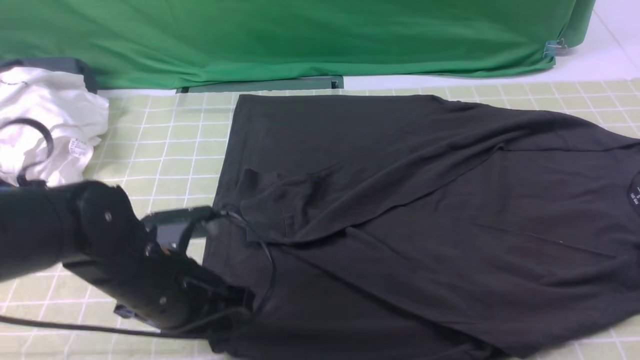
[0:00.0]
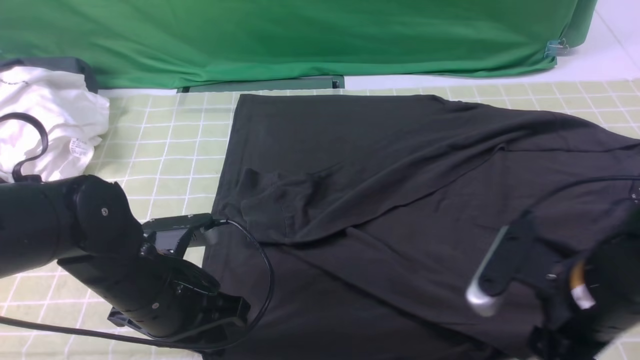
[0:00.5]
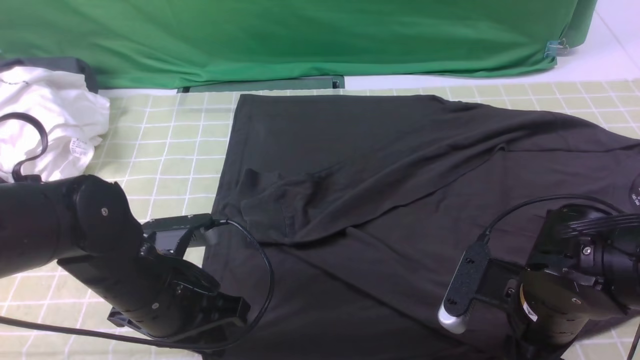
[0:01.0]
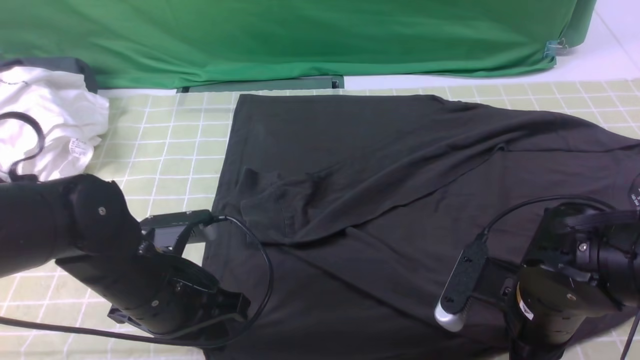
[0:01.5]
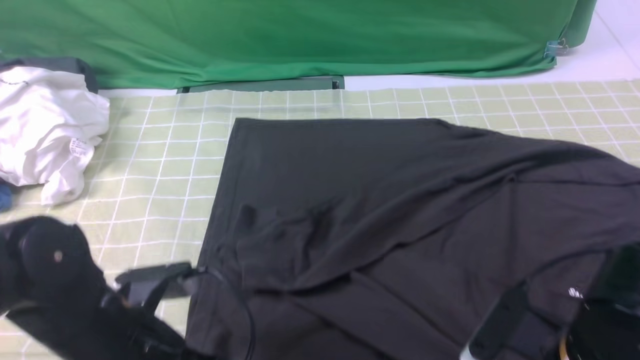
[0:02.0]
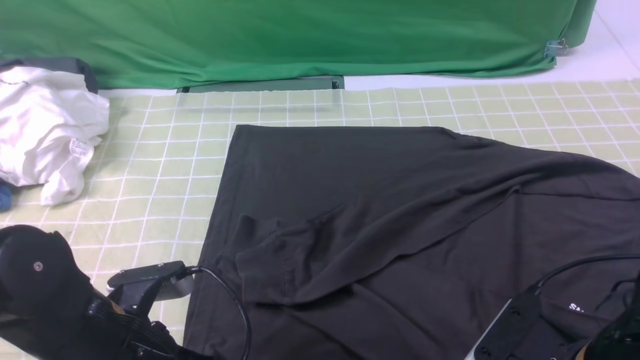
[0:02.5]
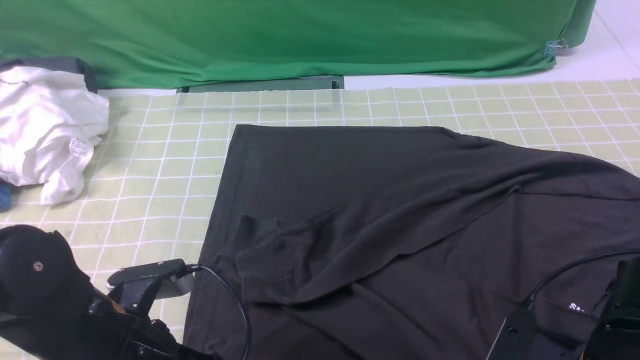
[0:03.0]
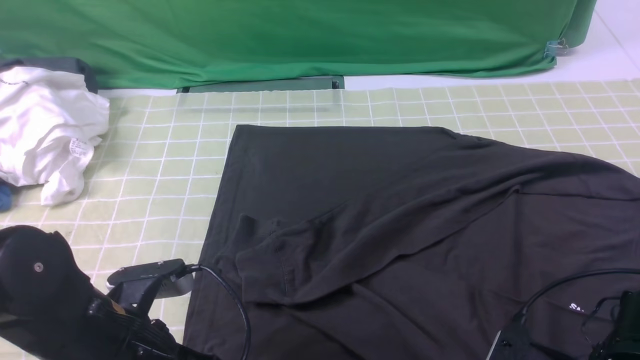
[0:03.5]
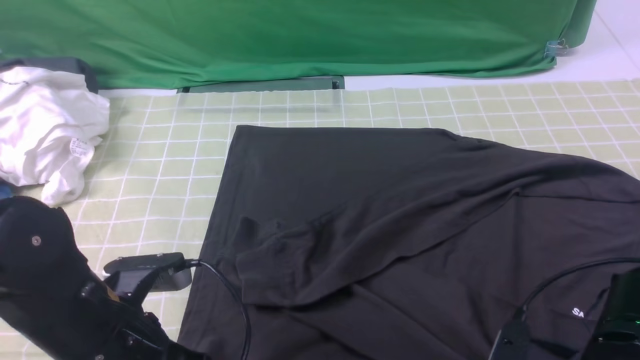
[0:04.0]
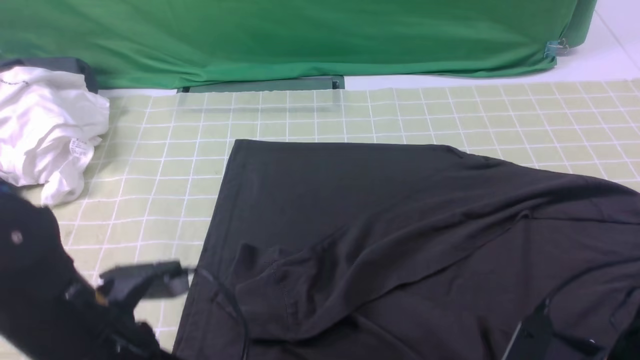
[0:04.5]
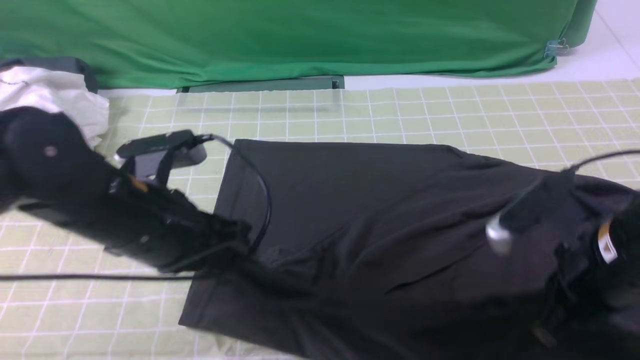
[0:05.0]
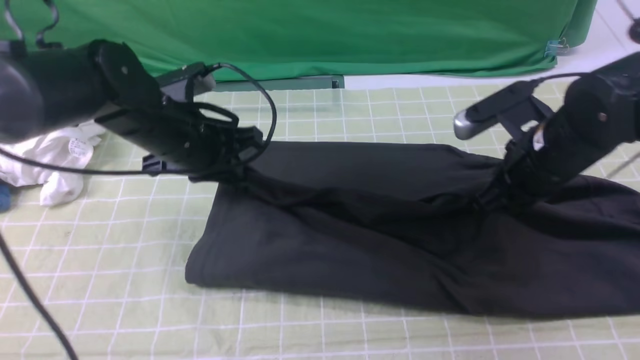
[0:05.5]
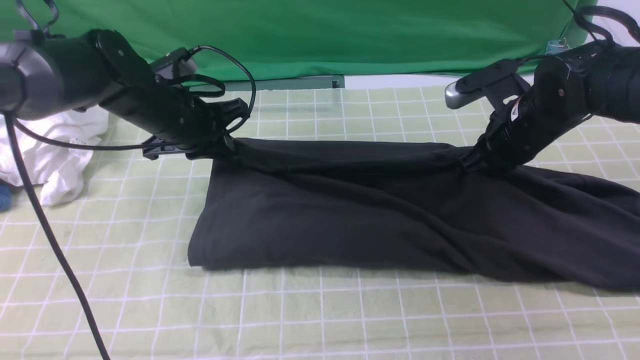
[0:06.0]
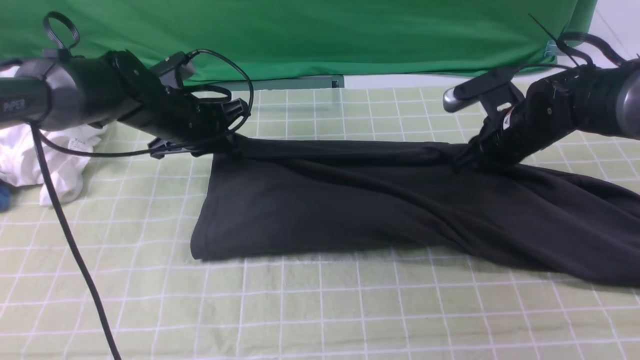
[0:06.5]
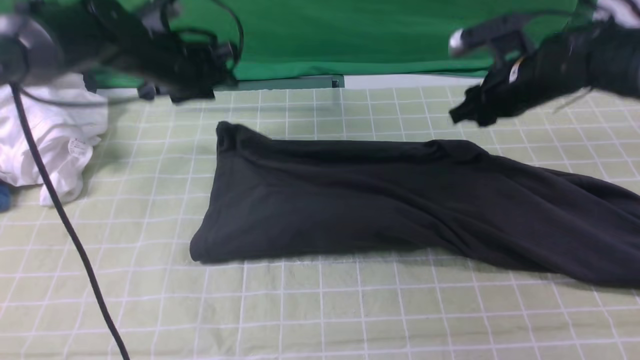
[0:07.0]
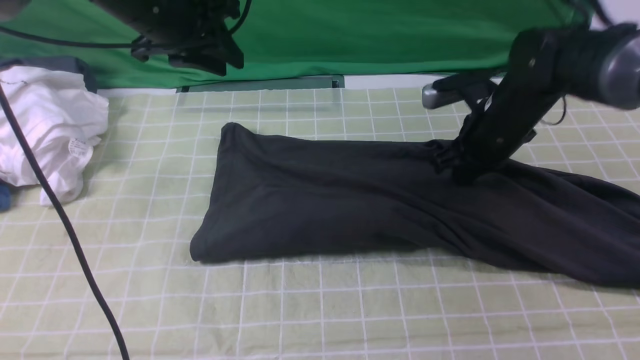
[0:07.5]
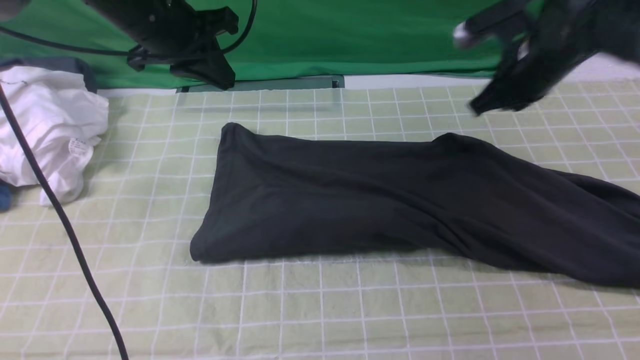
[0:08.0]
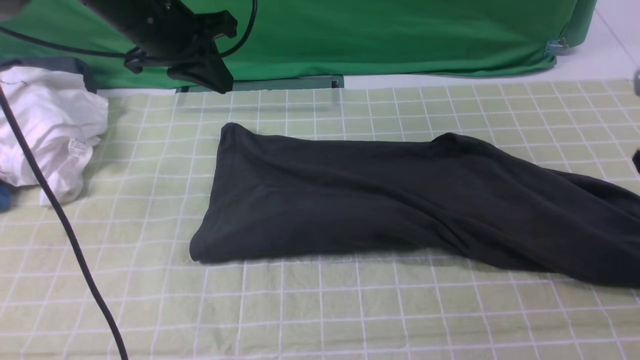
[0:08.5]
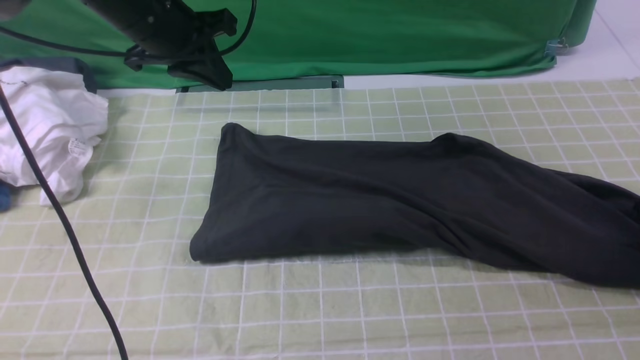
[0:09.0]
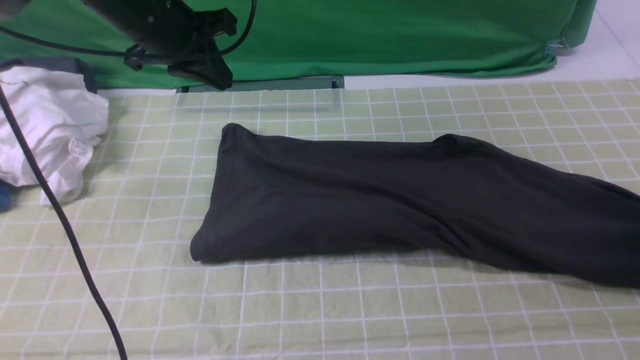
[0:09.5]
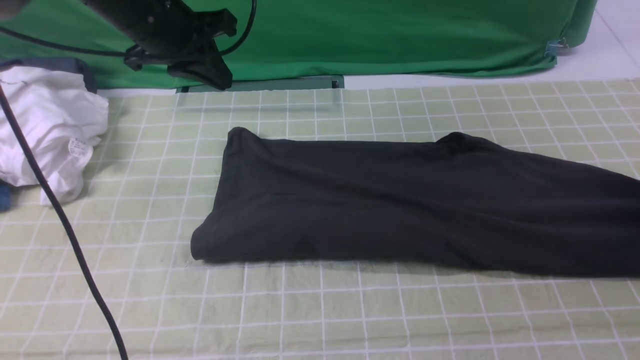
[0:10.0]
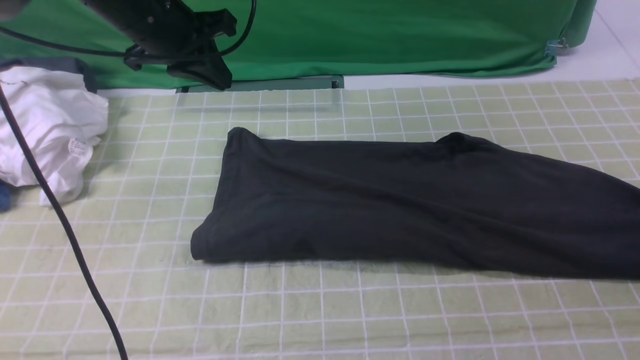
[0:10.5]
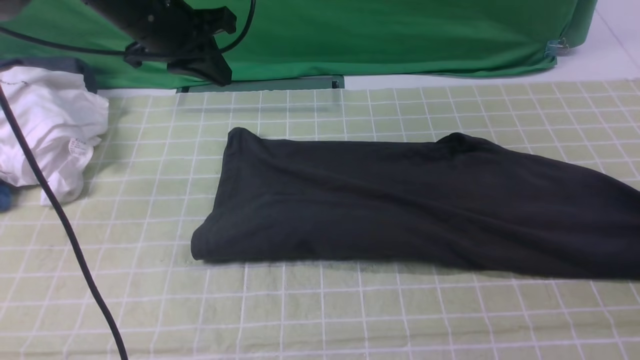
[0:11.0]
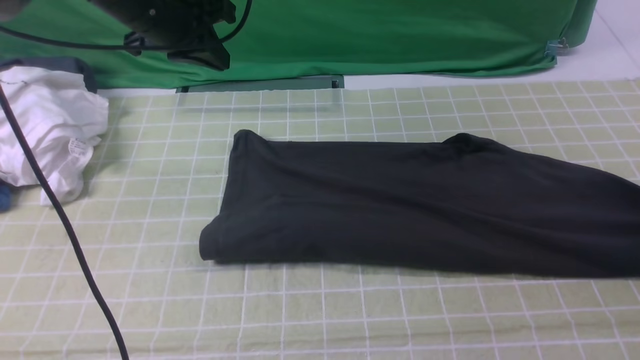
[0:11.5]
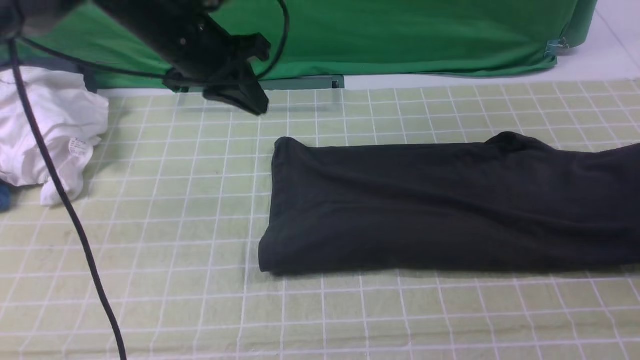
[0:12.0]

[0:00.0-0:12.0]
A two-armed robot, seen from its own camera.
Step, 0:02.0 to 0:07.5: use both arms to drag the lower edge of the fabric forward and fold it over the upper edge.
Step, 0:08.0 to 0:11.0: use the right arm to clamp the right edge of the fabric.
0:00.0 to 0:02.0: The left gripper goes about 5 cm backward; the right gripper is displaced downward and to the left by about 15 cm, and closes.
0:02.0 to 0:04.0: The right gripper opens and closes again.
0:04.0 to 0:06.0: Both grippers move forward, about 25 cm.
0:06.0 to 0:08.0: The left gripper is displaced upward by roughly 10 cm, and opens and closes again, while the right gripper is displaced upward by about 5 cm.
0:08.0 to 0:10.0: The right gripper moves to the right, about 20 cm, and opens.
0:10.0 to 0:12.0: The right gripper travels upward by approximately 10 cm, and opens, then closes again.

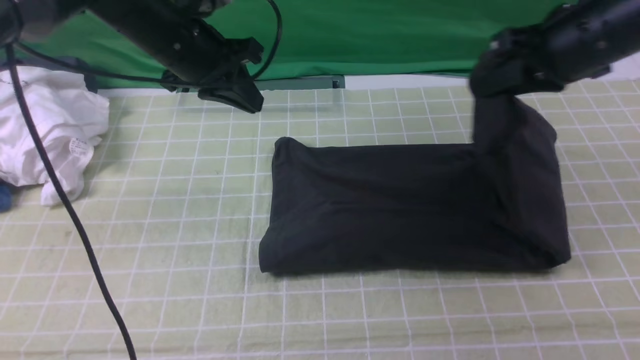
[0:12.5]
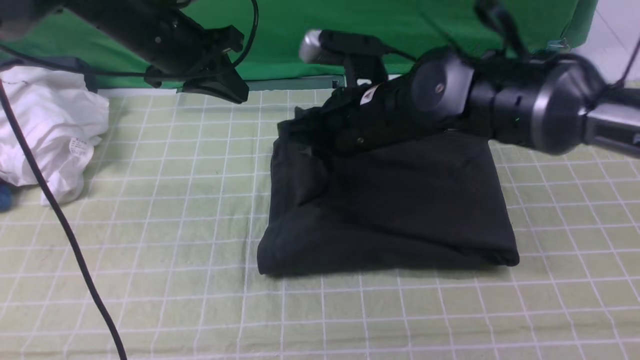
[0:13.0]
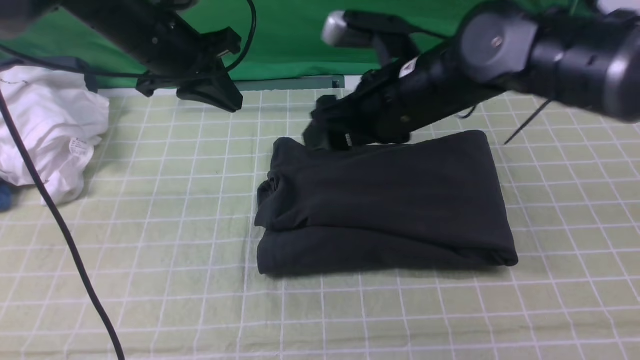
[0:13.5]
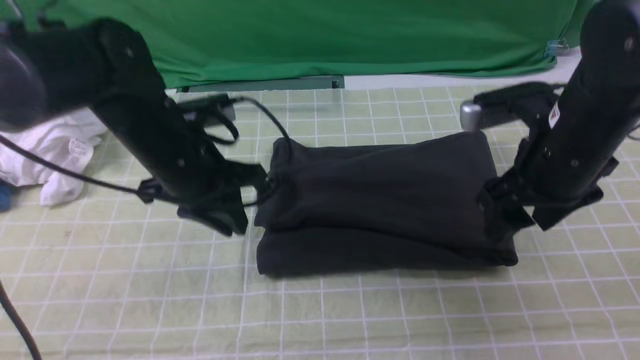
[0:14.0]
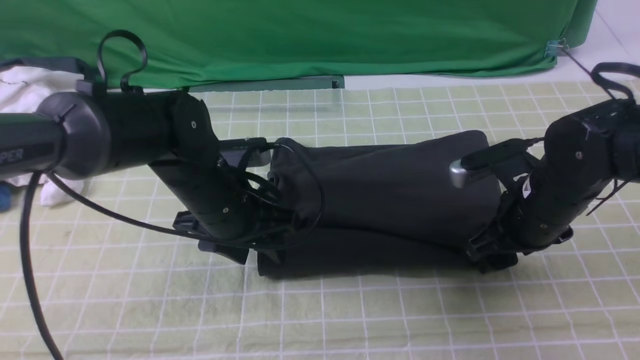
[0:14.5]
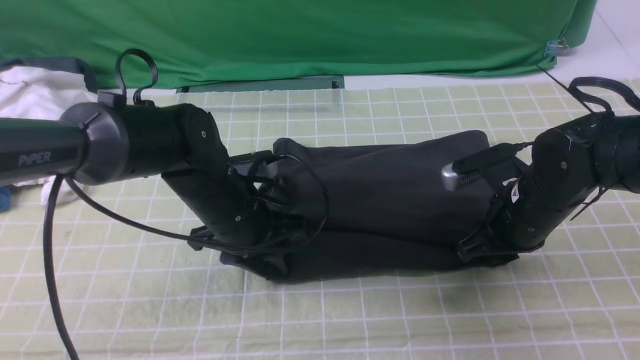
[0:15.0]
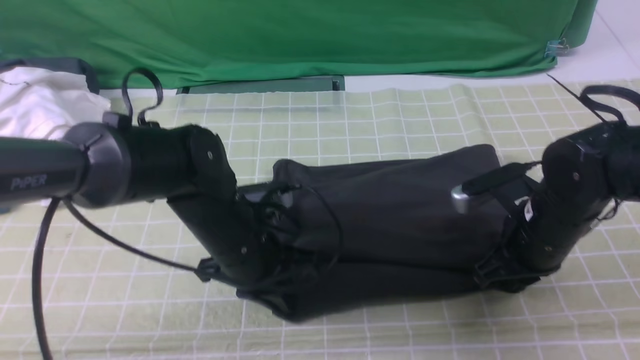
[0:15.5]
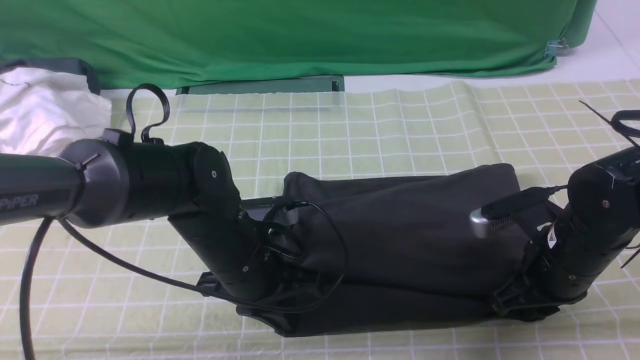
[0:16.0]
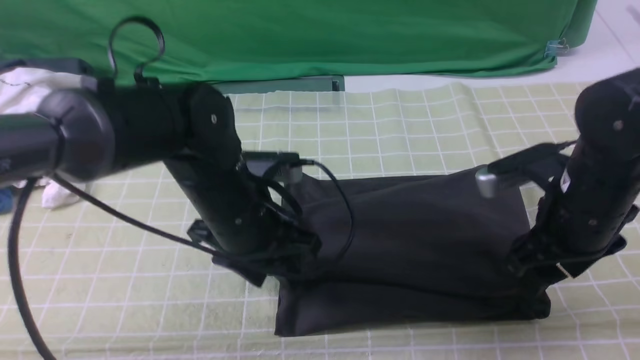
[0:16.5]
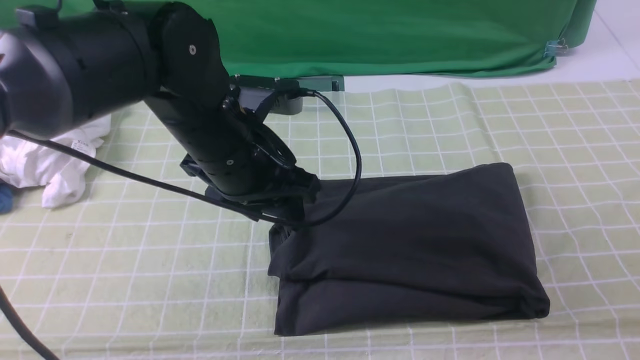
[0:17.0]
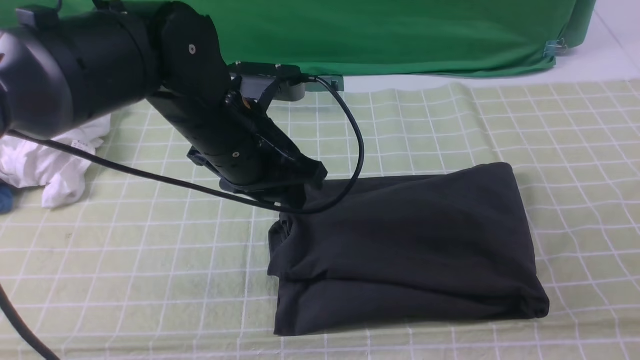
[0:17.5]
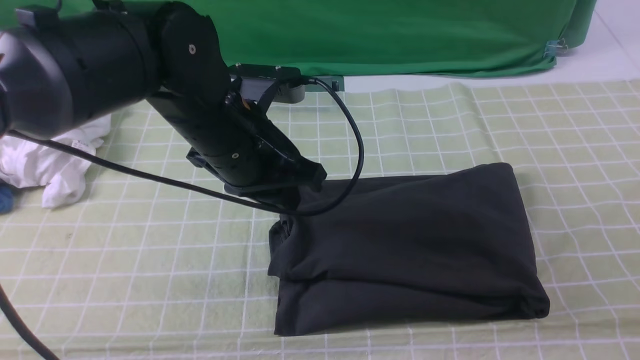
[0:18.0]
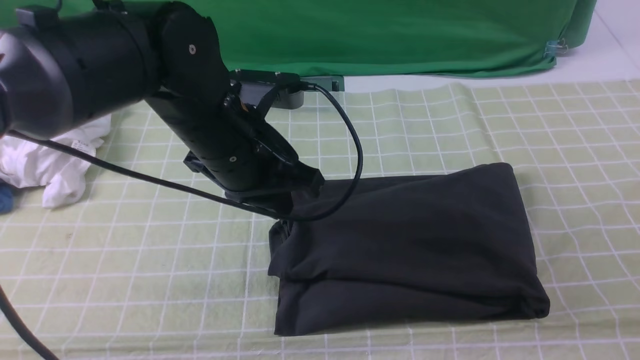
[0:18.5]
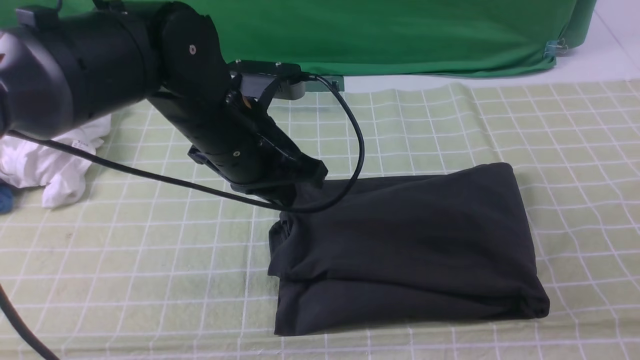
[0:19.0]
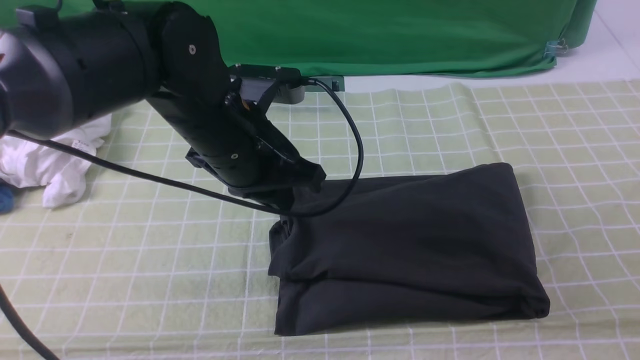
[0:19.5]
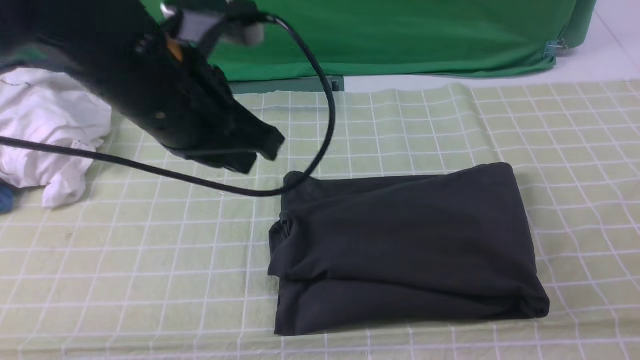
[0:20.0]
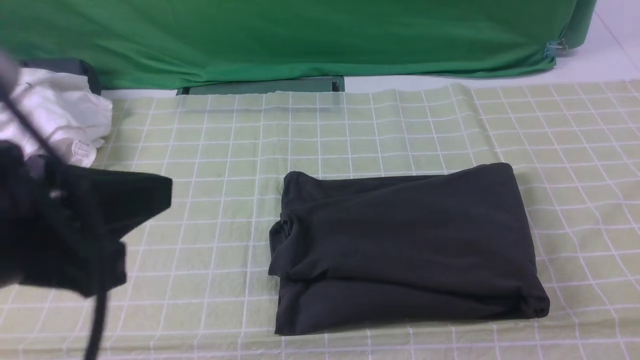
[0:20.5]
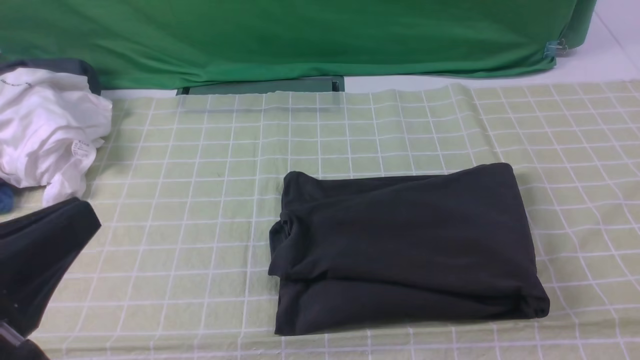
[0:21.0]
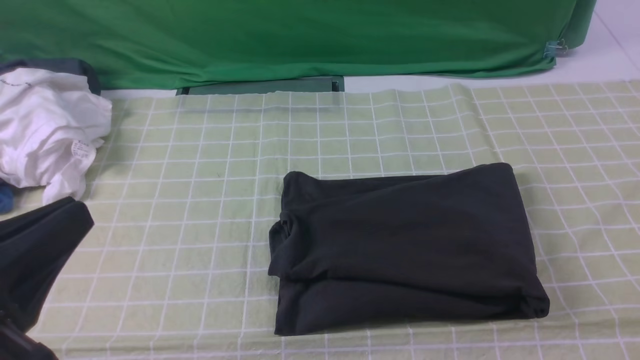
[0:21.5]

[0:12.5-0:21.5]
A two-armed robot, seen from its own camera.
0:12.5 to 0:14.5: The left gripper is displaced backward, downward and to the right by approximately 15 cm, and opens its fingers; the right gripper goes roughly 15 cm downward and backward, moves about 15 cm to the left and comes back, and opens.
0:14.5 to 0:17.0: The left gripper goes about 10 cm upward, and closes, then opens again. Meanwhile the right gripper goes approximately 25 cm upward and backward, and closes its fingers.
0:17.0 to 0:19.5: The right gripper goes approximately 20 cm downward and backward. Meanwhile the left gripper closes.
0:19.5 to 0:21.5: The left gripper moves backward and to the left, some 25 cm.
